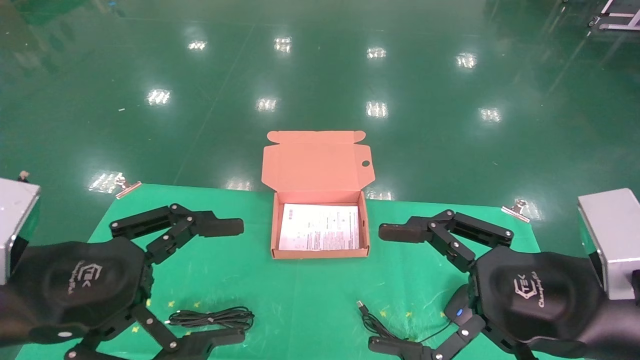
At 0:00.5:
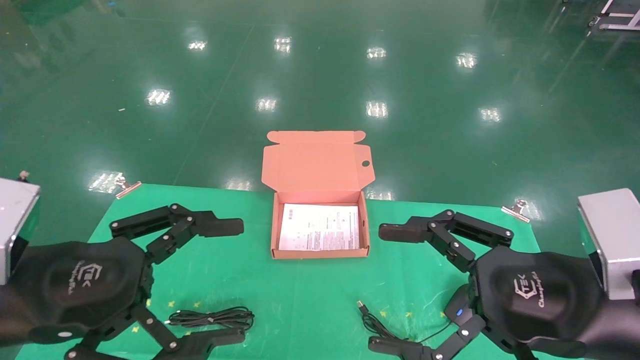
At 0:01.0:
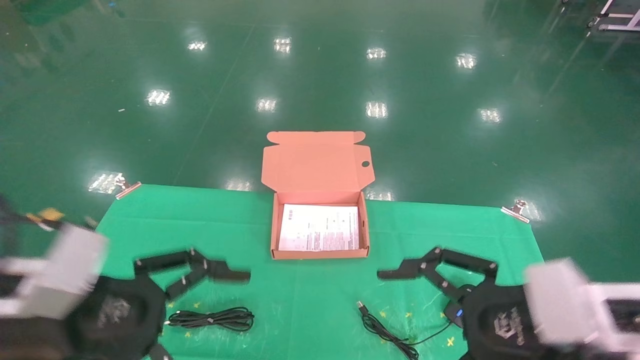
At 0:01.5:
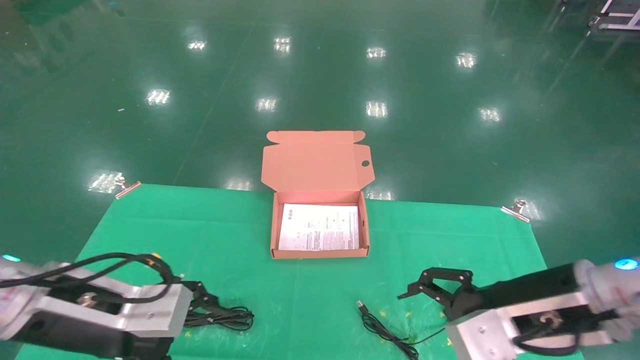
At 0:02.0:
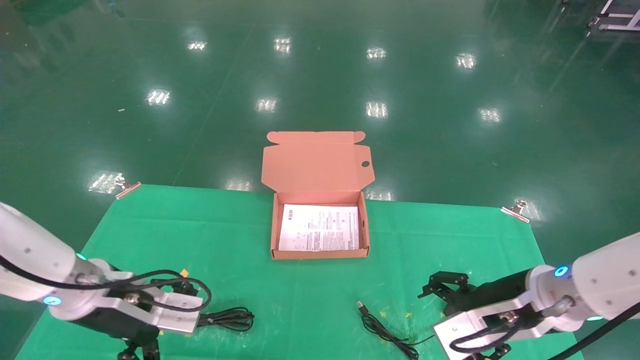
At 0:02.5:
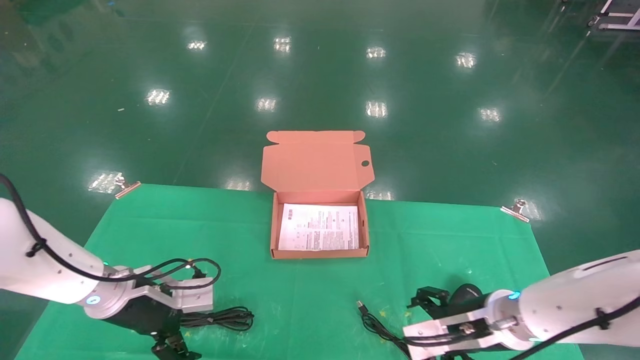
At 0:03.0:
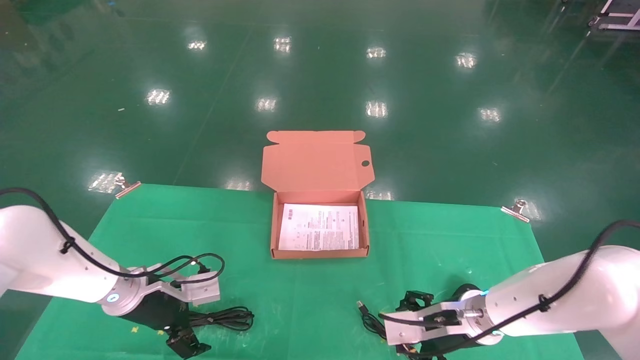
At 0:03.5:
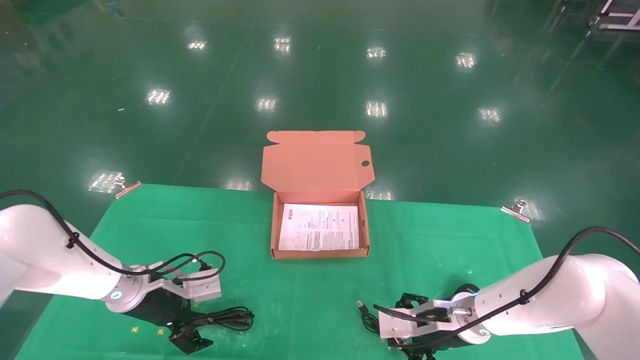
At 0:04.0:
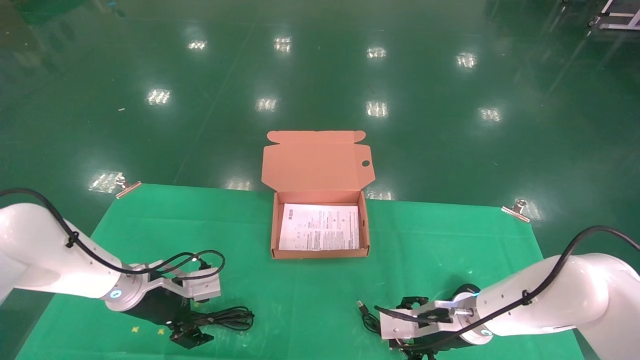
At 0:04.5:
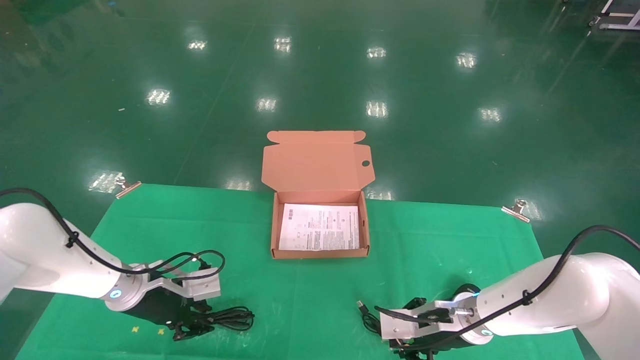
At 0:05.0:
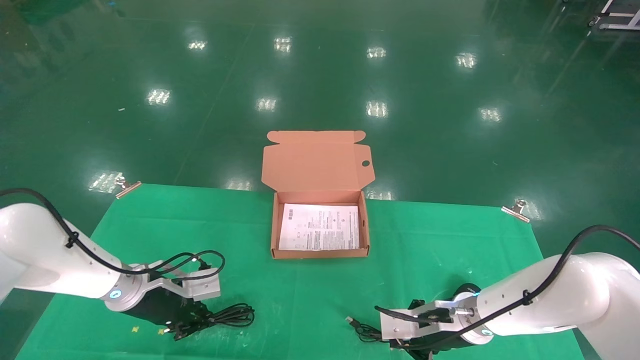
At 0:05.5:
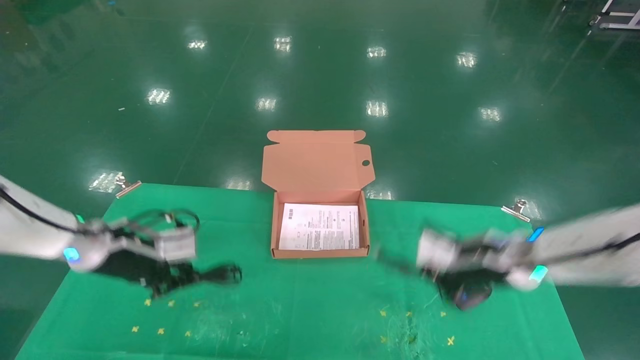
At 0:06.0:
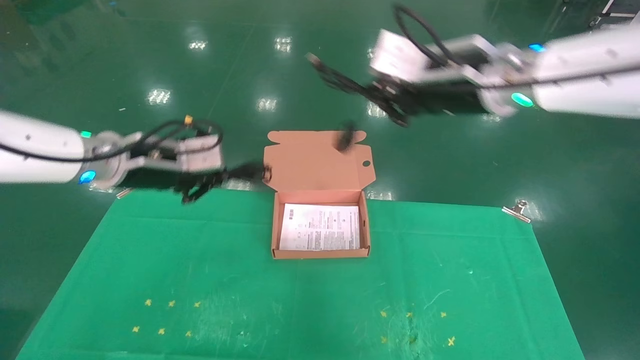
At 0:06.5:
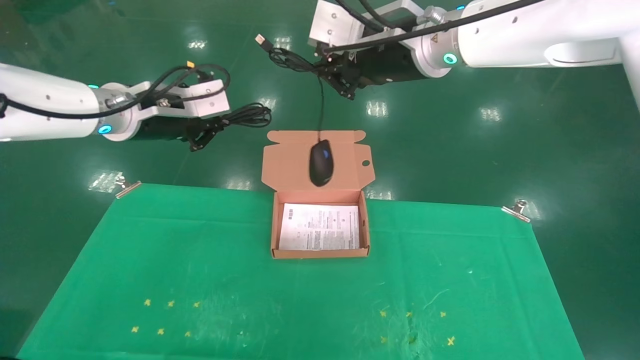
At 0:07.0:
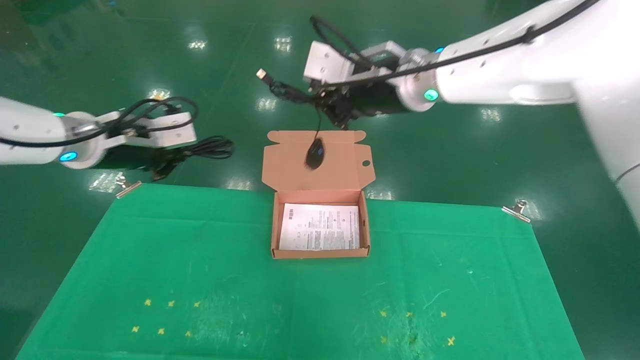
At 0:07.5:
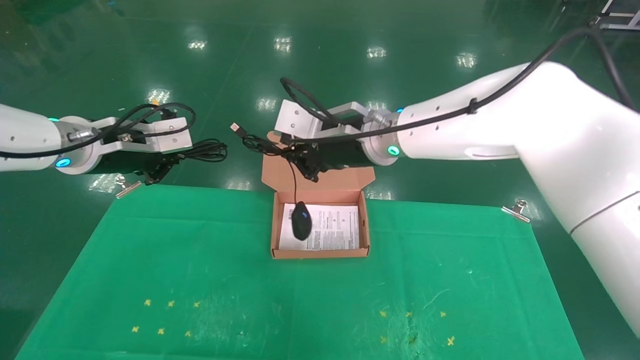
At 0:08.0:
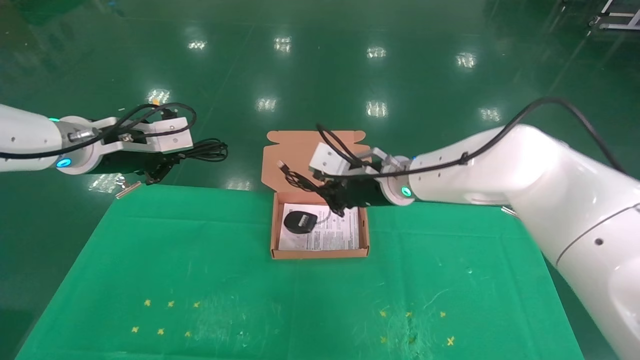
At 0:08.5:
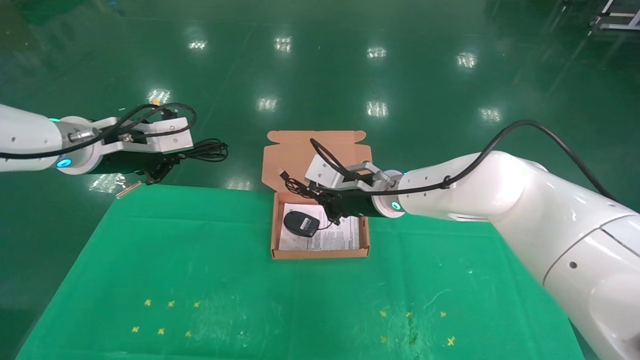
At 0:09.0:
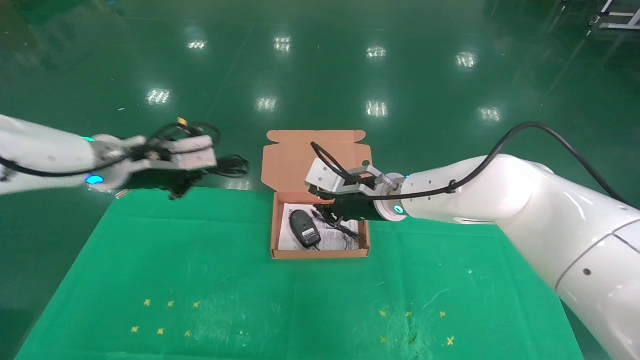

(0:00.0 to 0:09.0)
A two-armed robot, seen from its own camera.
Task of the whole recording: grasp data cable left put into box grasp mouse right put into box.
Step, 0:01.5 - 0:05.5: Grab and pick up both the mouse and power cord from the accessory packaging area at the same time.
0:00.0 - 0:02.0: The grippers both shift forward and downward by approximately 15 cm.
0:02.0 - 0:04.5: The right gripper goes some 15 cm downward and forward, and closes up. Meanwhile the left gripper heads forward and downward, covering approximately 10 cm, and closes its fingers.
0:04.5 - 0:07.0: Both grippers move upward, some 30 cm. The right gripper closes, while the left gripper closes its fingers.
0:07.0 - 0:09.0: The right gripper goes approximately 15 cm downward; the left gripper ends up some 5 cm from where it was.

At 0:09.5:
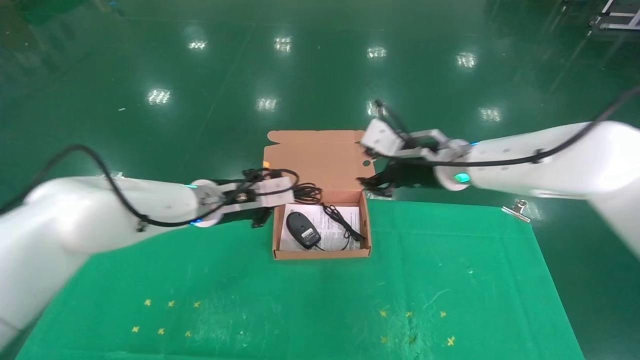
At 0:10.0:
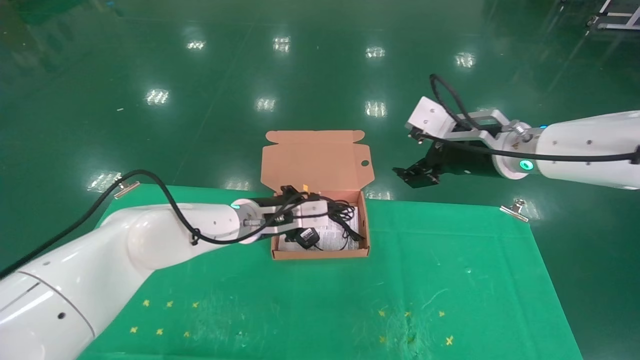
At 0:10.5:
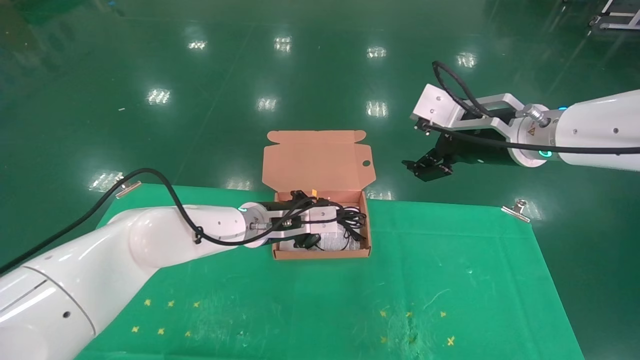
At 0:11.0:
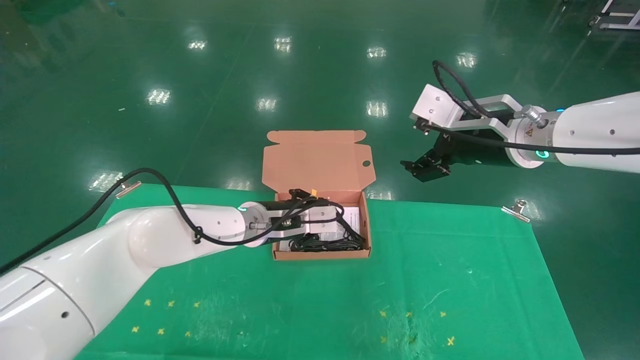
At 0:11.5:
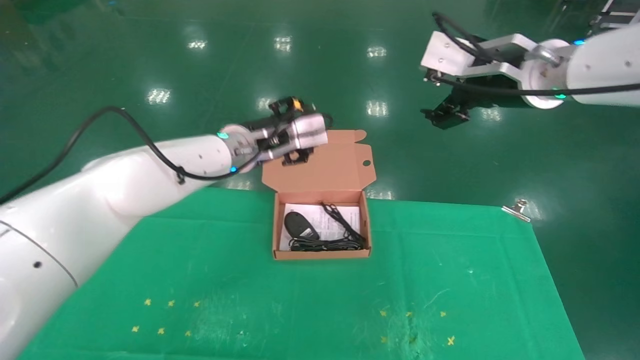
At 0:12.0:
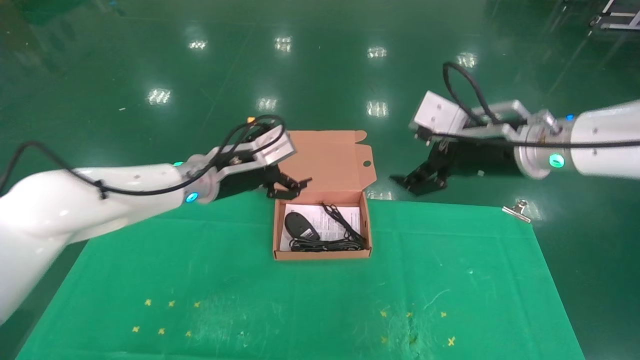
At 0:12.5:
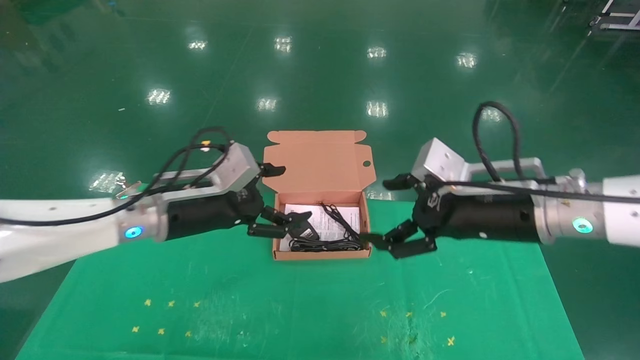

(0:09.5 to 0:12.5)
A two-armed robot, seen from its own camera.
Task of the whole recording: grasp data cable left put into box grasp mouse right put into box.
0:09.5 - 0:11.0: The left gripper travels to the right by roughly 5 cm. Meanwhile the right gripper heads upward, backward and to the right, covering some 10 cm, and opens its fingers.
0:11.0 - 0:12.5: The left gripper moves to the left and backward, roughly 15 cm, and opens up; the right gripper shifts some 10 cm downward and backward.

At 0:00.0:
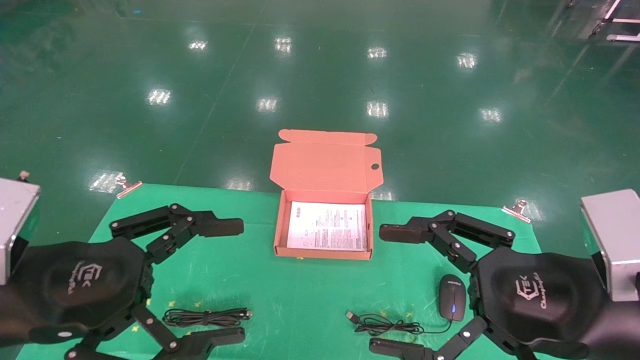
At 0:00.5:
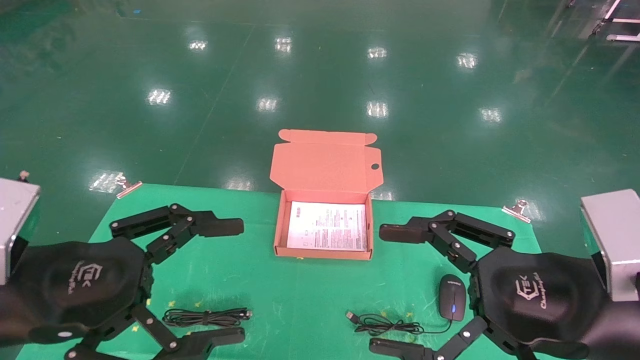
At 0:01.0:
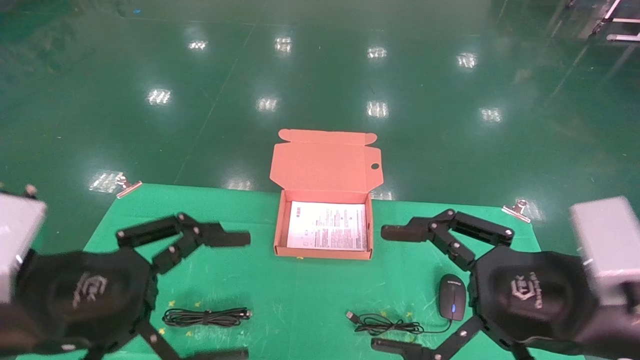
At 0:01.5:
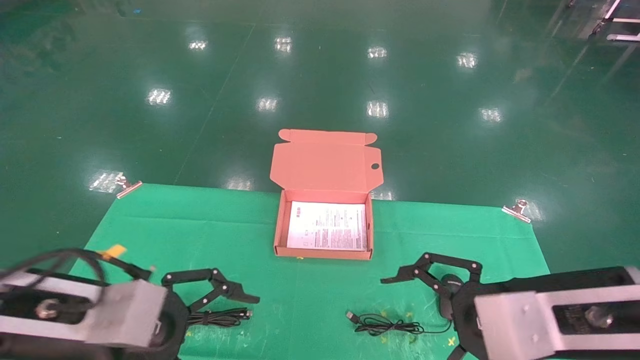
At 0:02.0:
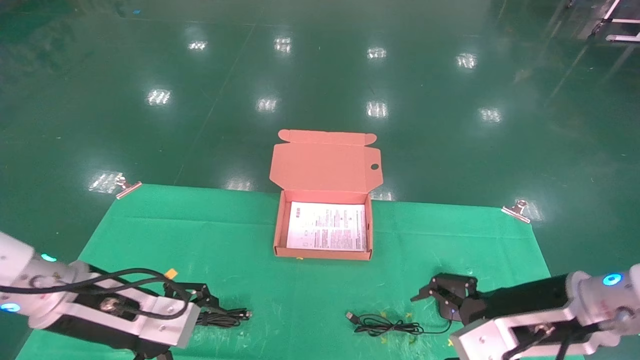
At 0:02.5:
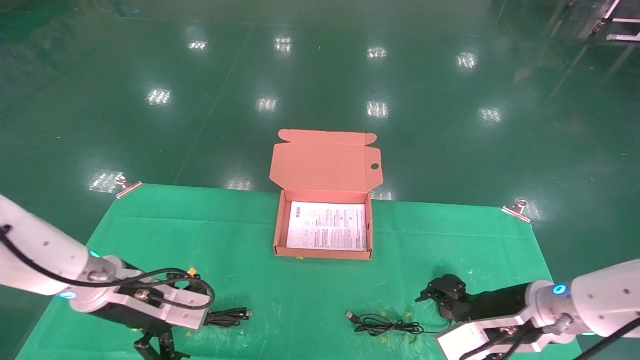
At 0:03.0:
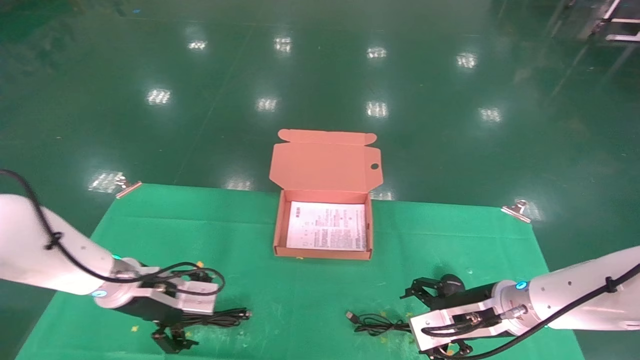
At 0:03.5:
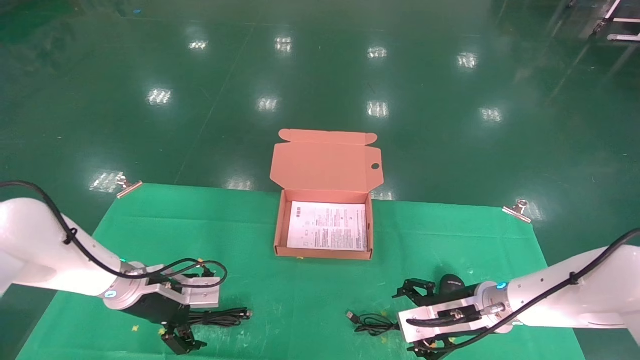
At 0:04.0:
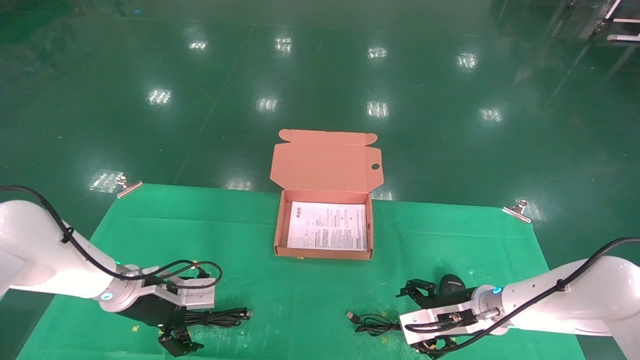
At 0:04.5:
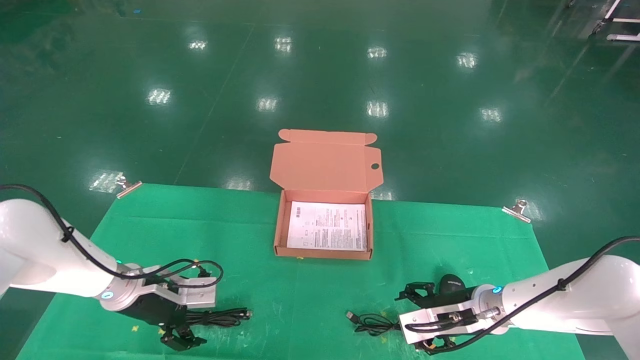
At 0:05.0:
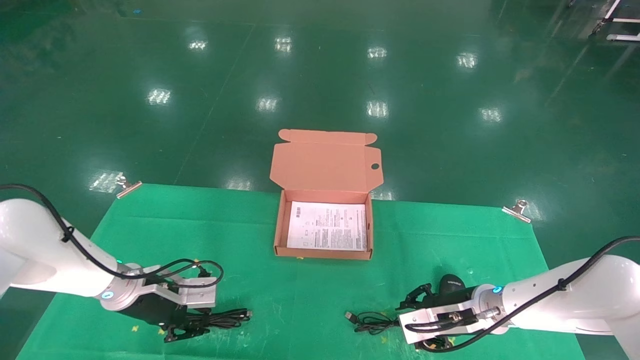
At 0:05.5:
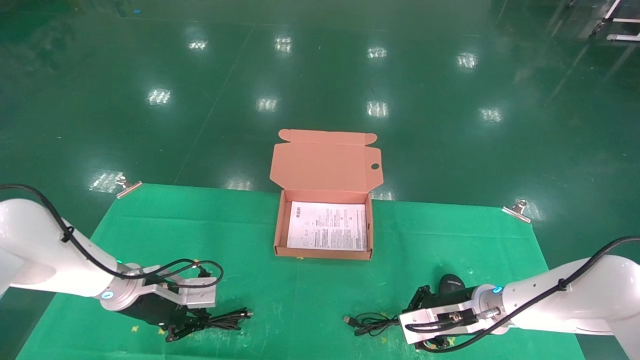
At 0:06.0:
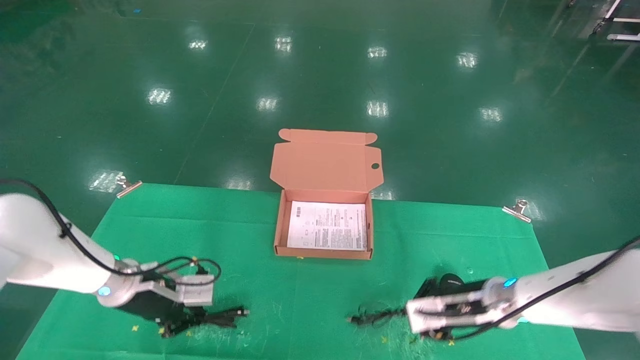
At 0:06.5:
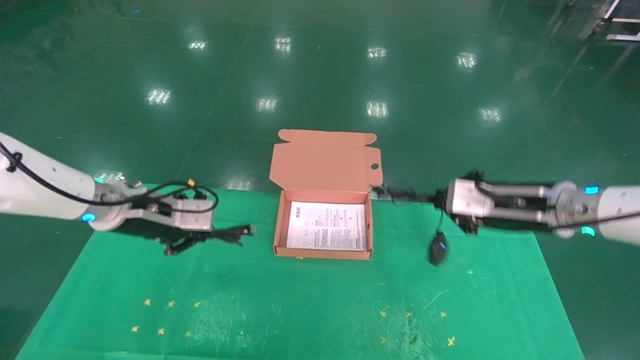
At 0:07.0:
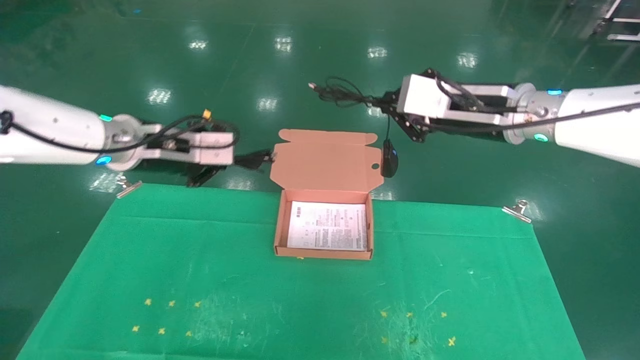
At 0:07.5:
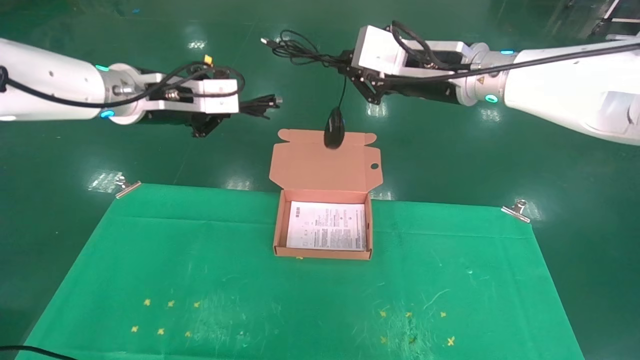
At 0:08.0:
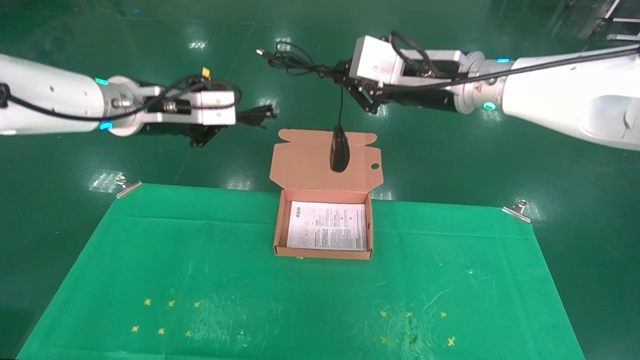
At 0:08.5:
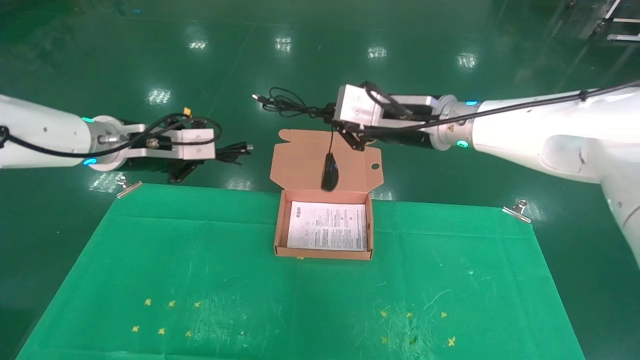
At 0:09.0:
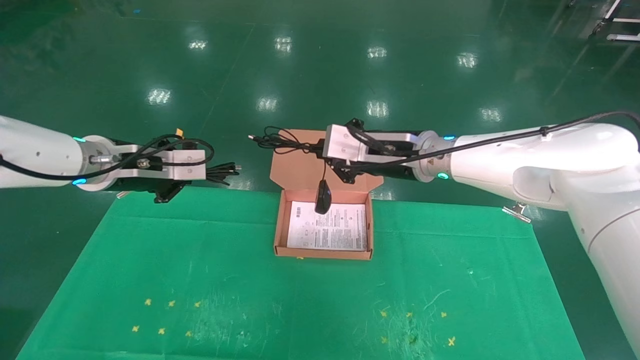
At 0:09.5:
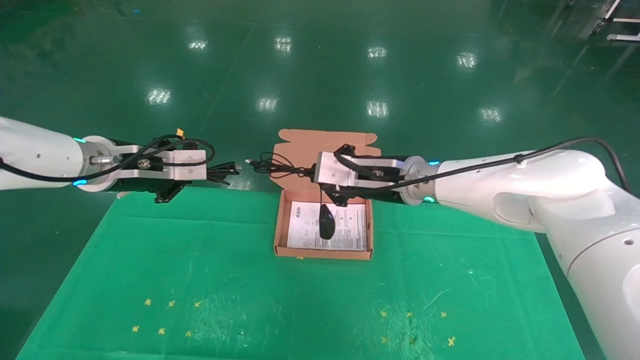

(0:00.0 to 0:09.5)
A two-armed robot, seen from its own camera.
Task of the whole recording: grasp data cable left put into box grasp mouse right put into box.
Step, 0:01.5 - 0:05.5: Grab and pick up both the mouse and power cord from the accessory packaging area at the same time.
0:00.0 - 0:02.0: Both grippers travel together forward and downward, some 10 cm.
0:02.0 - 0:04.0: The two grippers go some 20 cm forward and downward.
0:04.0 - 0:05.5: The right gripper closes its fingers. The left gripper closes its fingers.
0:05.5 - 0:07.5: Both grippers move upward, approximately 30 cm.
0:07.5 - 0:09.5: The right gripper goes approximately 15 cm downward; the left gripper heads downward, covering some 10 cm.
